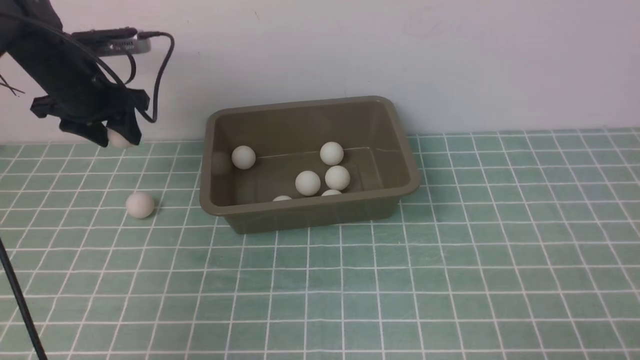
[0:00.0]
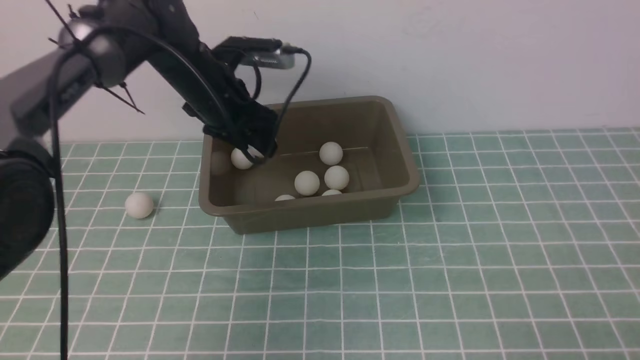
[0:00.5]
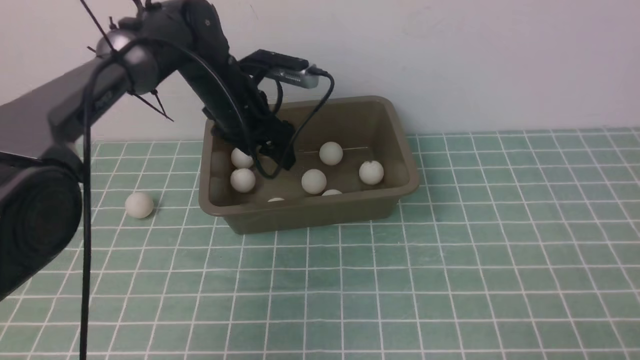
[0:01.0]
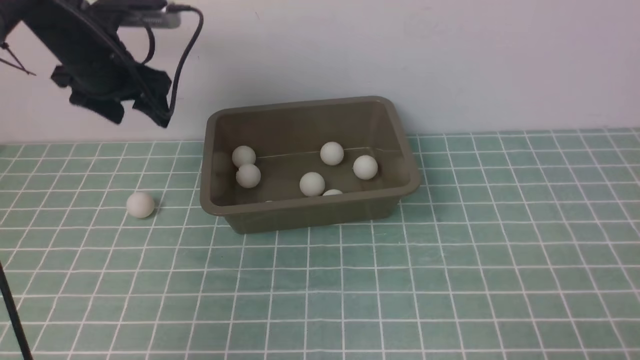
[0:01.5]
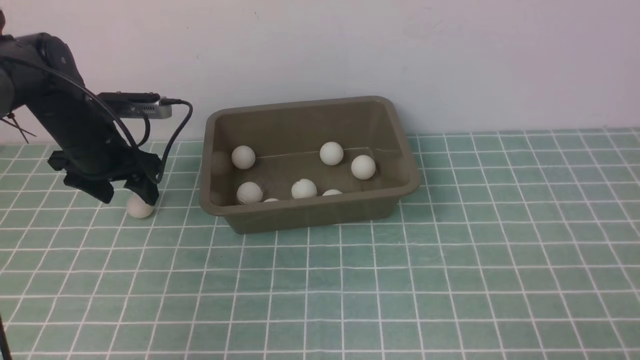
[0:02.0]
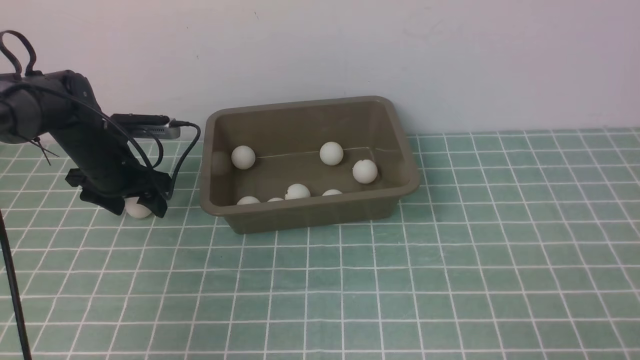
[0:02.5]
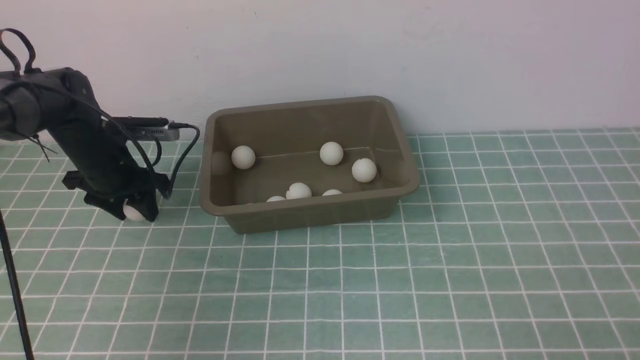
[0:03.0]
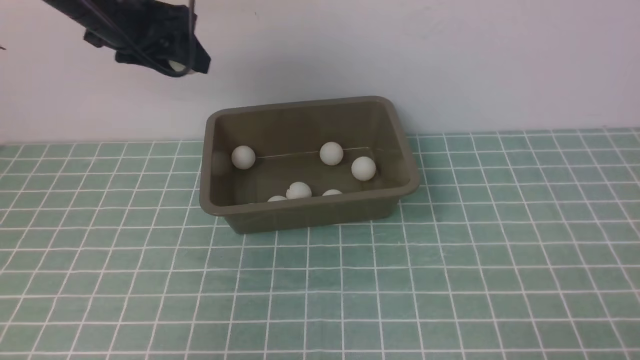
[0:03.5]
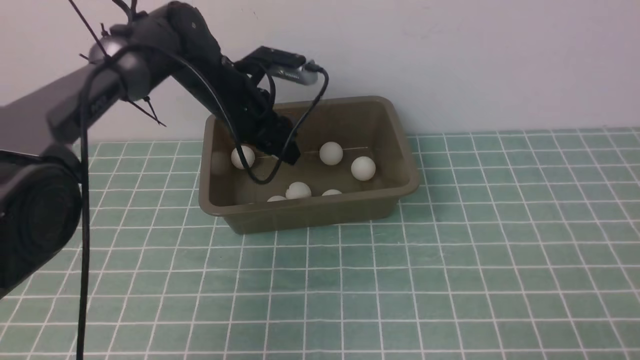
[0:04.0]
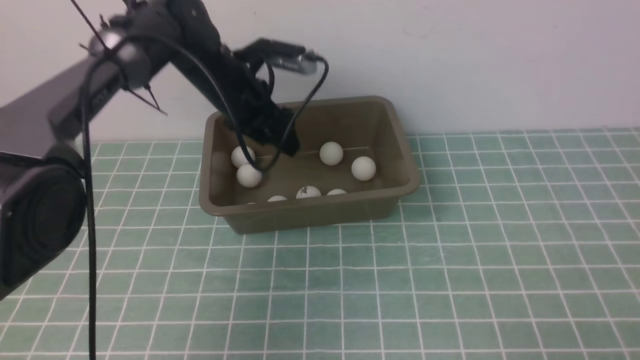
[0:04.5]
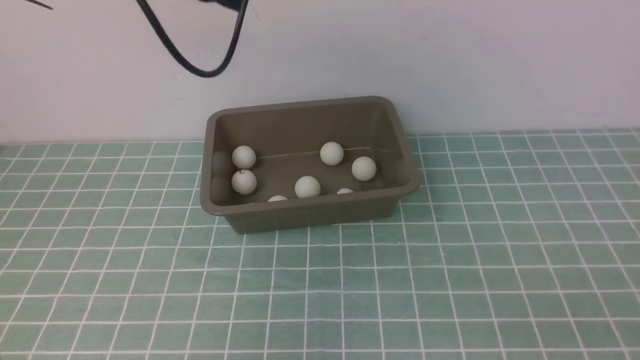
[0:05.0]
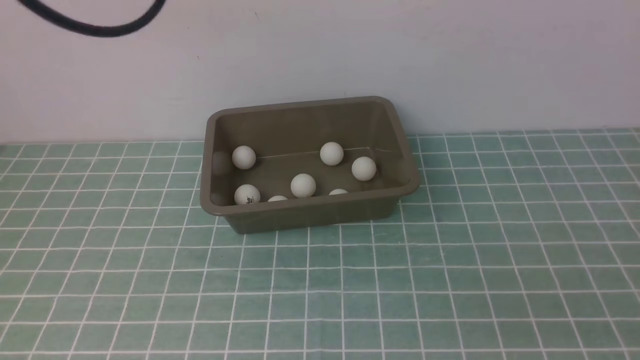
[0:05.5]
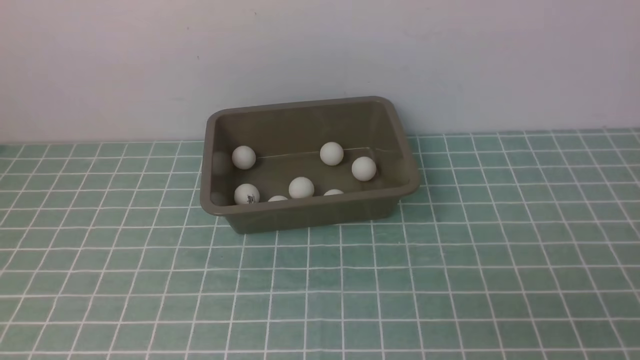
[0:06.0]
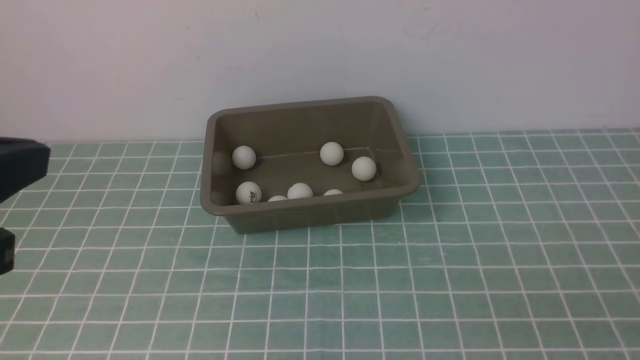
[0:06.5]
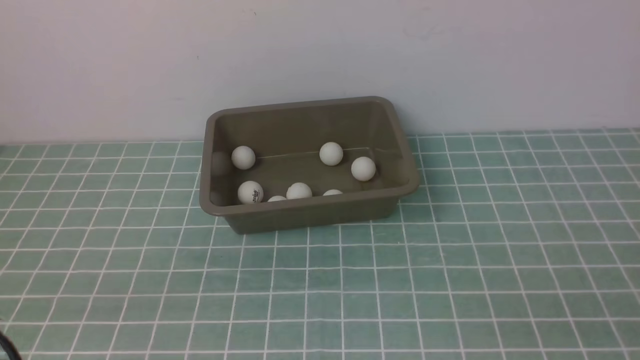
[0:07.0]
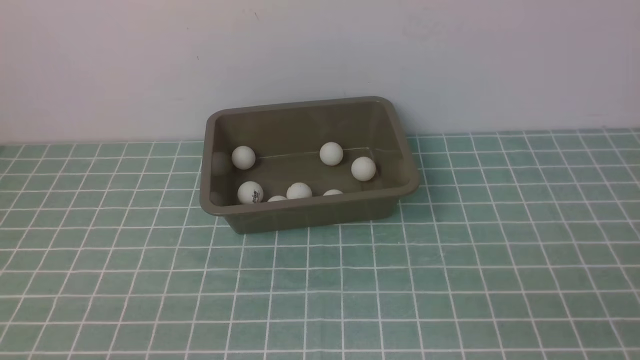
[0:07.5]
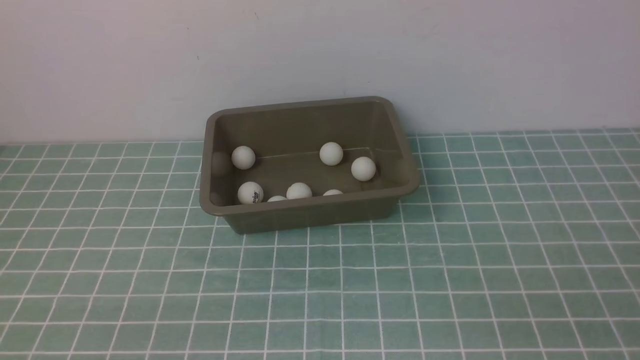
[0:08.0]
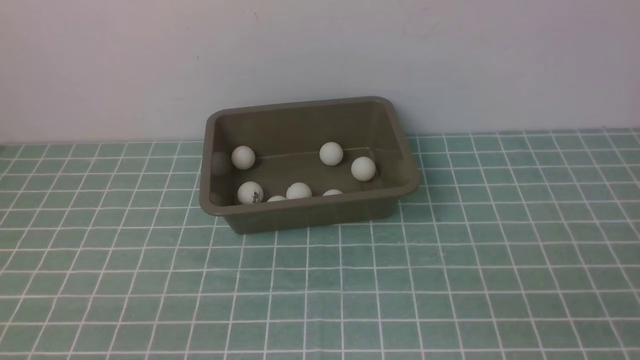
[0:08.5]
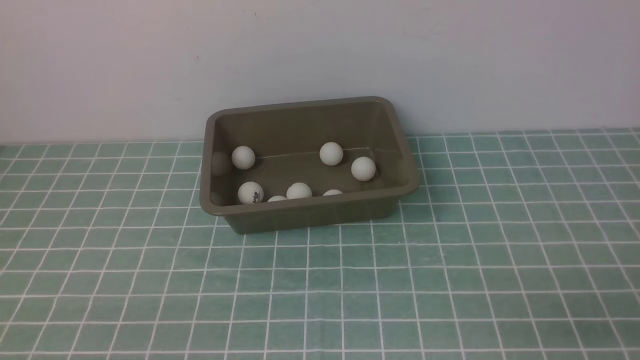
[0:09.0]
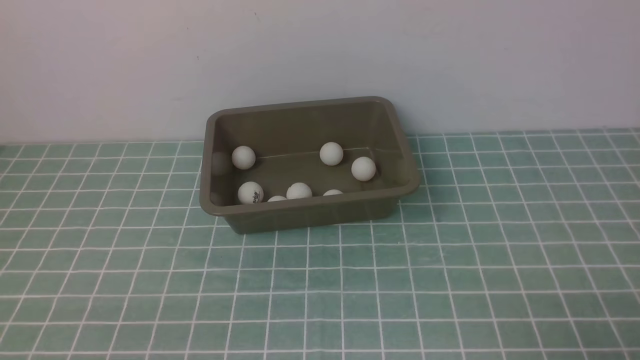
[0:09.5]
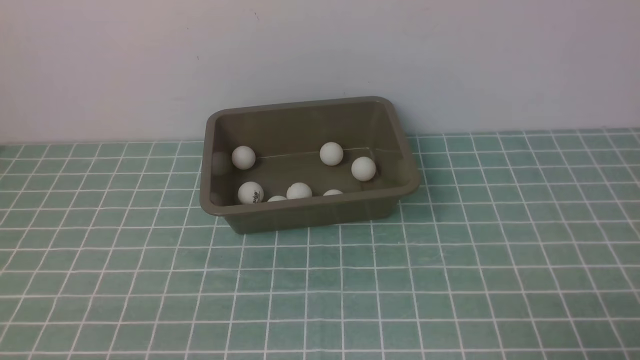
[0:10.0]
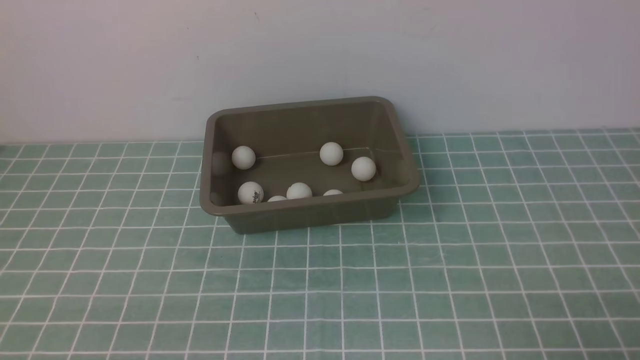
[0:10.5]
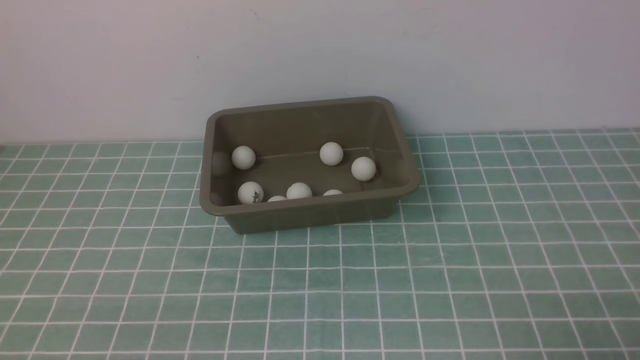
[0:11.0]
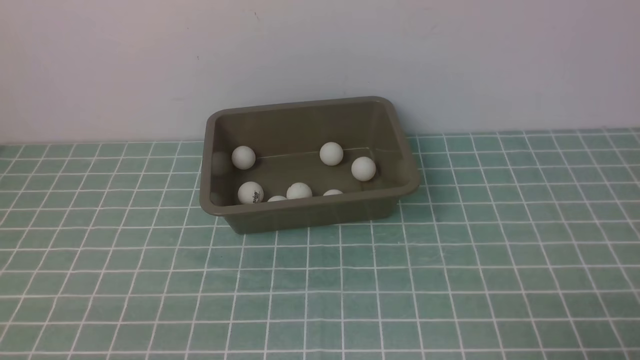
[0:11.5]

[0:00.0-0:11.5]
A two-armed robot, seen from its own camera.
Step, 0.0 to 1.0 s: use the left arm to put the table tennis ball into the box.
Step, 1.5 to 3.0 s: use the left arm to clamp the table tennis ball closest to it.
Step, 3.5 to 4.0 s: use the left arm to put the table tennis ball into the box.
0.0 to 2.0 s: The left gripper shifts roughly 5 cm downward, goes to the right and returns, some 15 cm each way, and opens up.
2.0 to 4.0 s: The left gripper goes up and down, roughly 15 cm each way, reversing 2 times.
4.0 to 6.0 s: The left gripper shifts some 40 cm backward and upward, and closes up.
9.5 to 11.5 s: Neither gripper changes place.

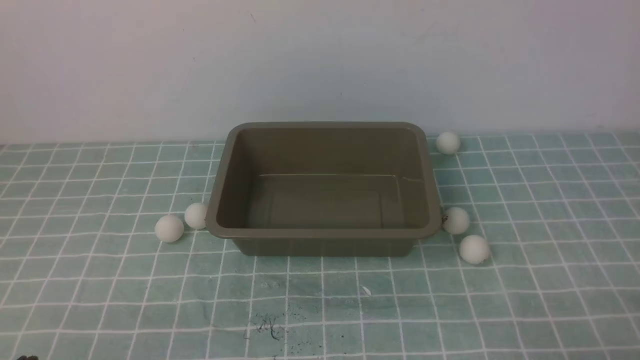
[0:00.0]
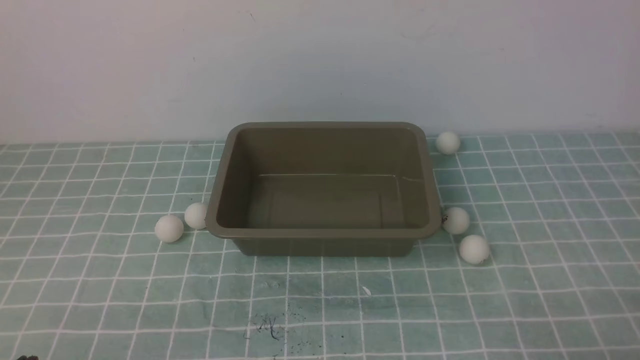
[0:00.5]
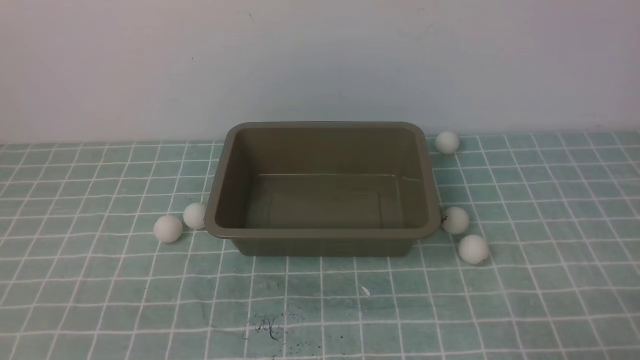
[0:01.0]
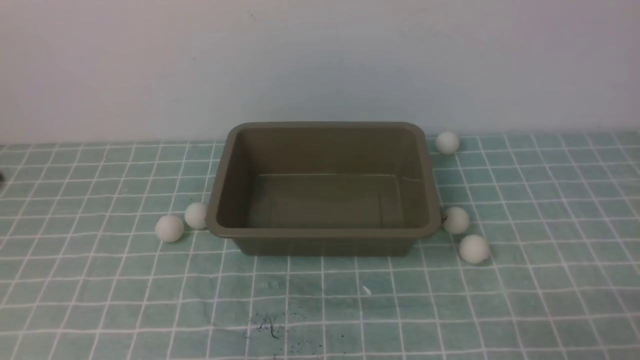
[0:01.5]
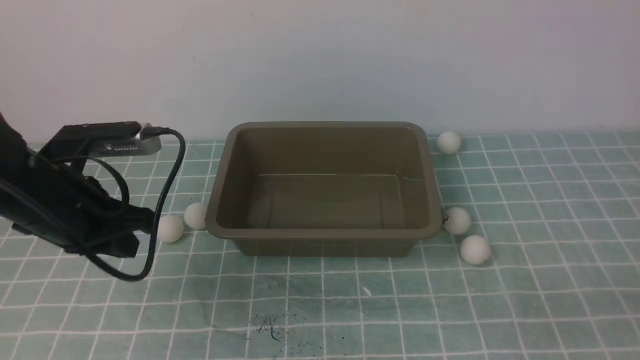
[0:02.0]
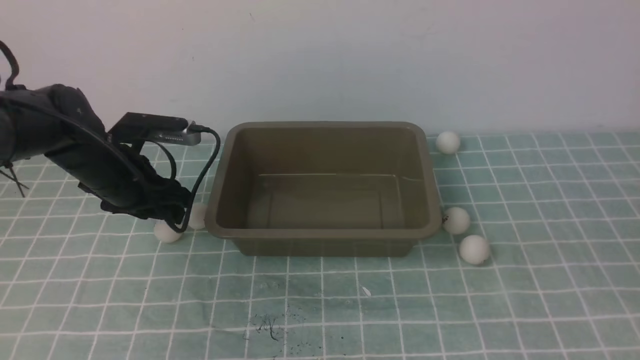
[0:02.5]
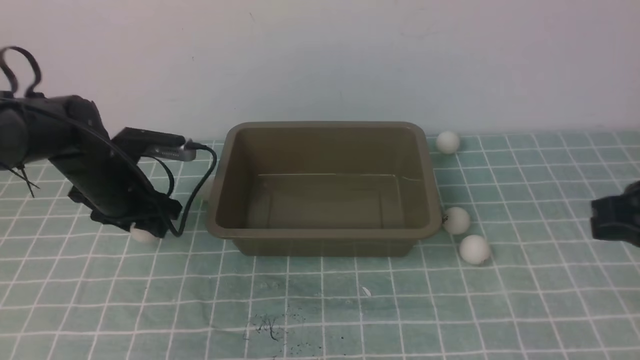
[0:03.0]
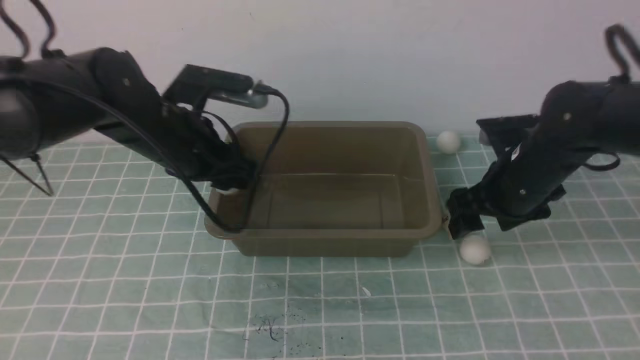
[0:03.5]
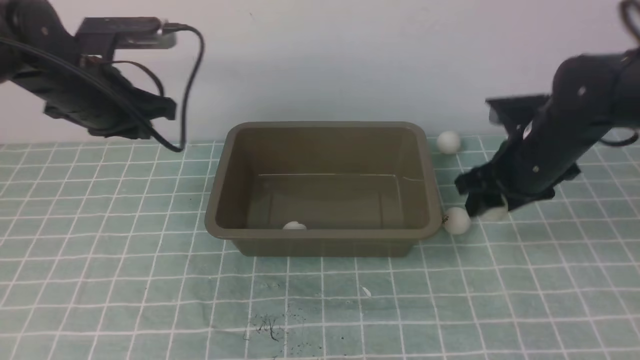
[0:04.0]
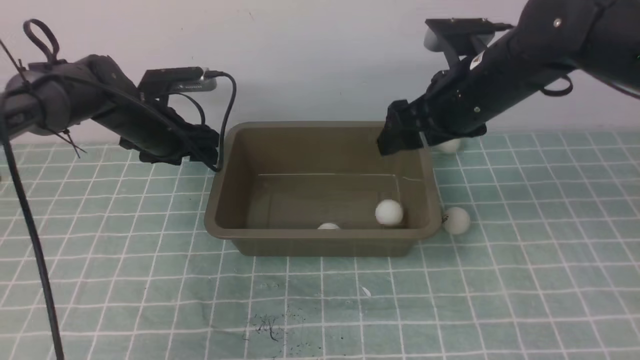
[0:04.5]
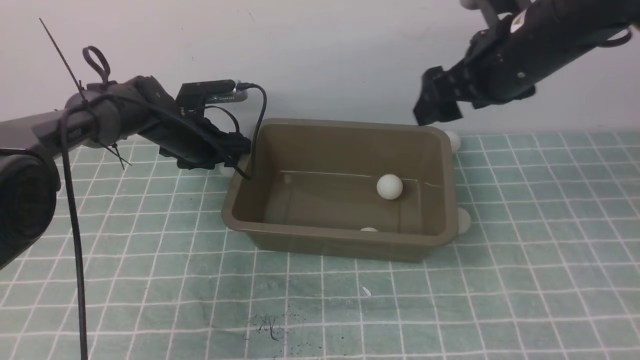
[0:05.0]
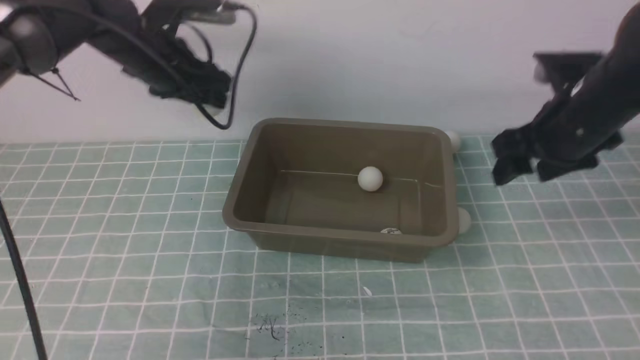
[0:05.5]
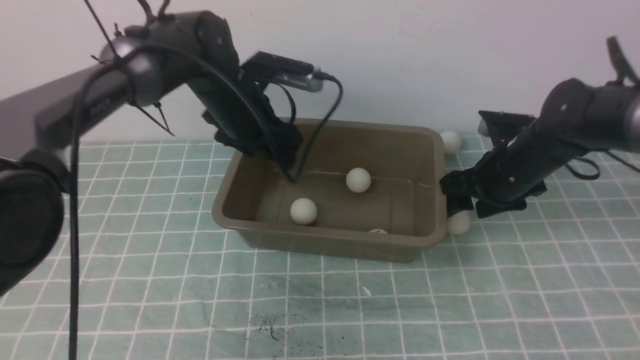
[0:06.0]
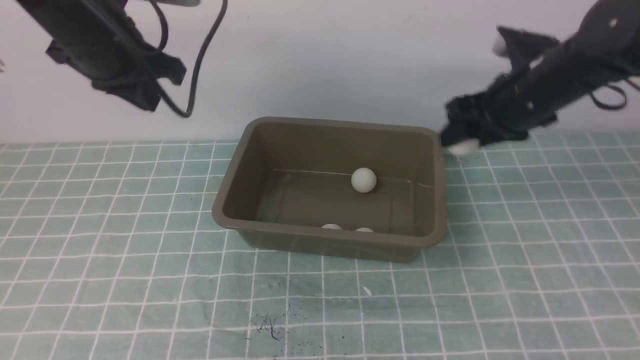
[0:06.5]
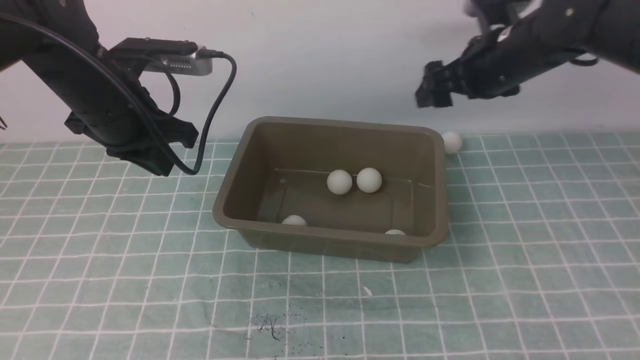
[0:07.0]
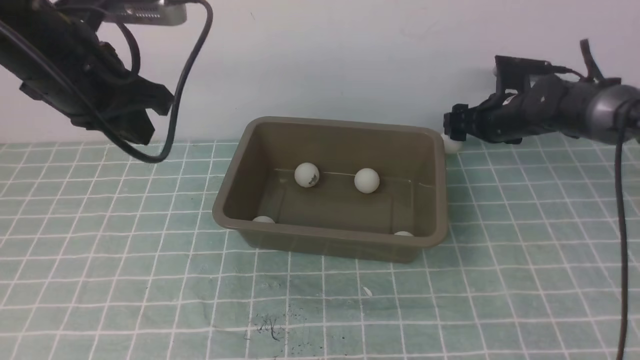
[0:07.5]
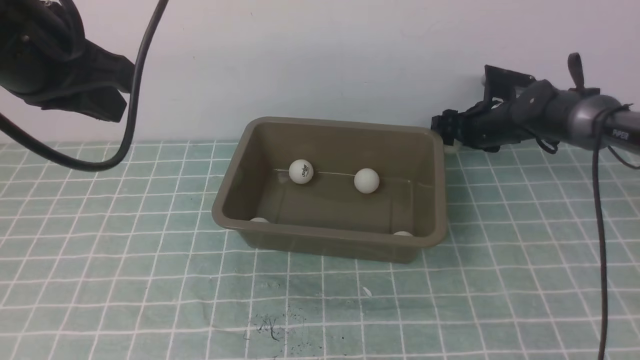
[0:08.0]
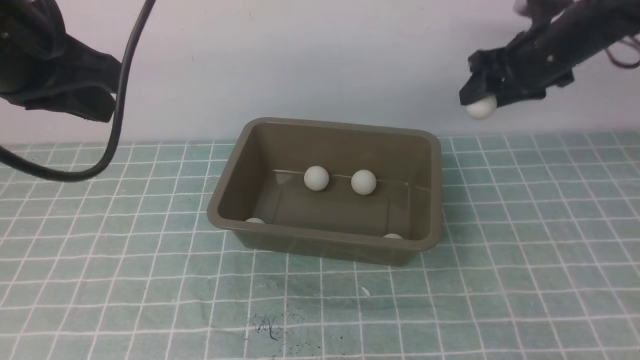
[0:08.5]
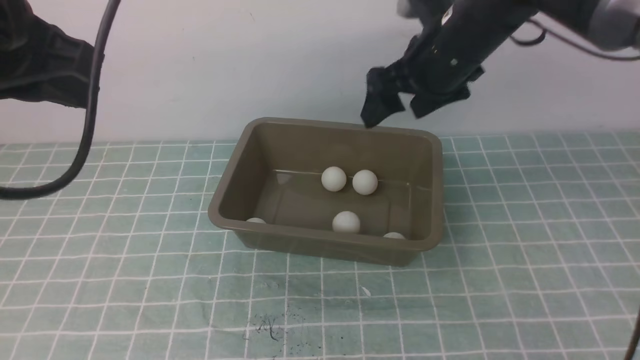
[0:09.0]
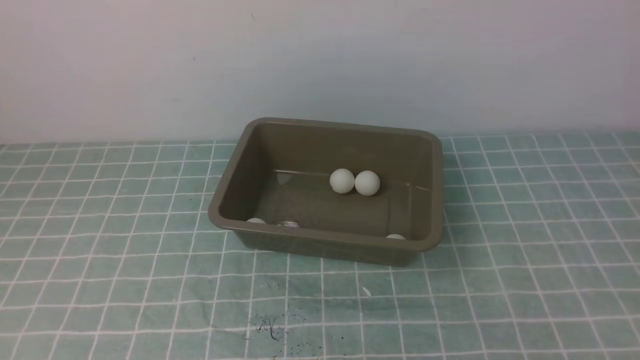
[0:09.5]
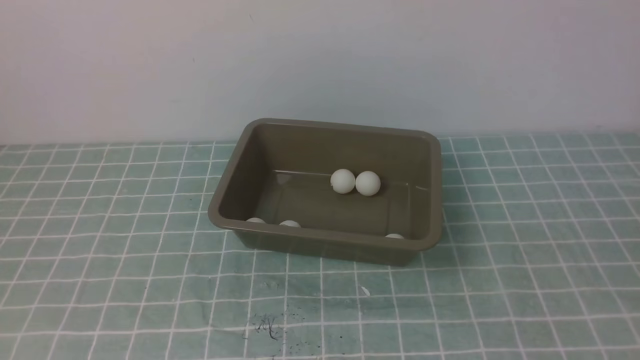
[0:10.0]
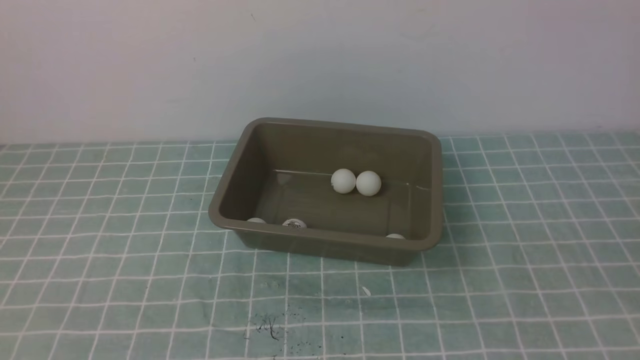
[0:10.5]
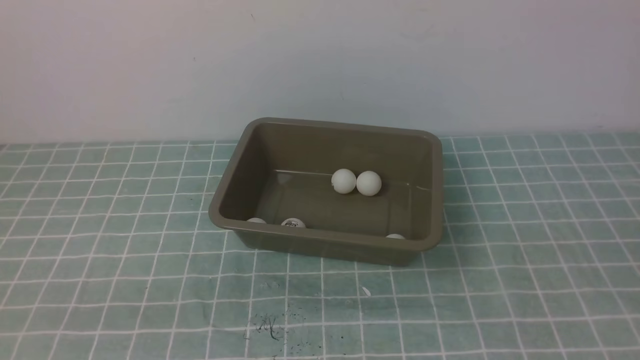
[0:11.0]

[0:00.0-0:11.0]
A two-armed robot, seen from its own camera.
Step, 0.0 to 3.0 s: use the left arm to clamp the table tennis ball closest to it.
Step, 7.0 to 8.0 s: use the right arm to clamp the table tennis ball closest to it.
0.0 to 2.0 s: The left gripper goes approximately 25 cm forward. Meanwhile the right gripper is displaced upward by approximately 5 cm.
2.0 to 3.5 s: The right gripper heads forward, covering approximately 30 cm, and opens its fingers; the left gripper heads forward and to the right, covering roughly 10 cm, and opens its fingers.
3.5 to 5.5 s: The left gripper goes approximately 10 cm forward; the right gripper moves upward, roughly 5 cm.
5.5 to 7.5 s: The left gripper is displaced backward and upward by about 20 cm, and closes, while the right gripper travels forward and downward by some 15 cm.
7.5 to 9.0 s: The left gripper moves backward and upward, approximately 10 cm; the right gripper moves upward, backward and to the left, some 25 cm.
9.0 to 11.0 s: The left gripper is displaced downward and backward by some 30 cm; the right gripper goes some 40 cm backward and to the right, and closes.
